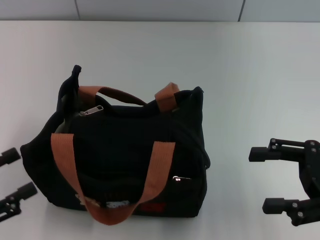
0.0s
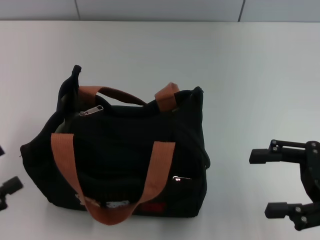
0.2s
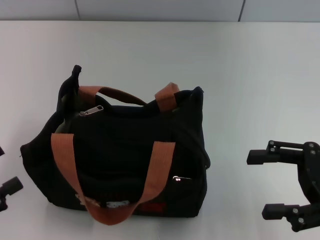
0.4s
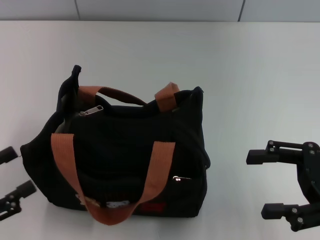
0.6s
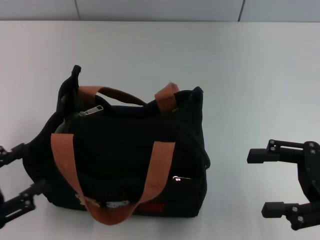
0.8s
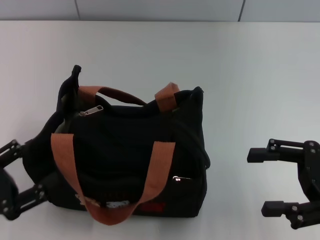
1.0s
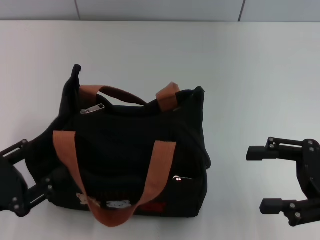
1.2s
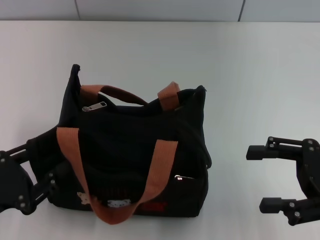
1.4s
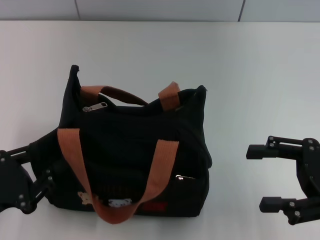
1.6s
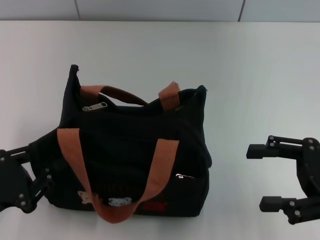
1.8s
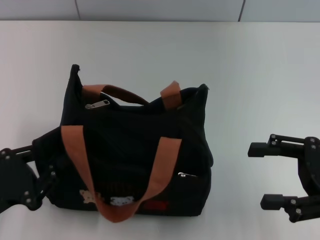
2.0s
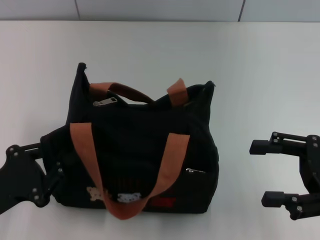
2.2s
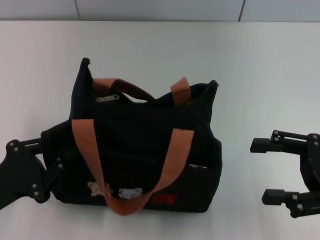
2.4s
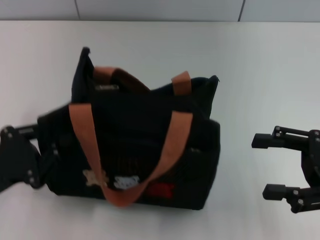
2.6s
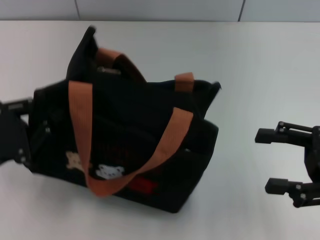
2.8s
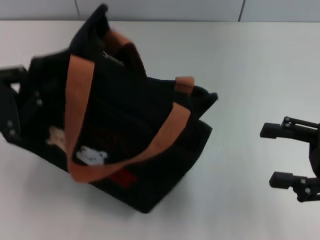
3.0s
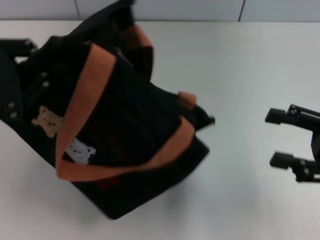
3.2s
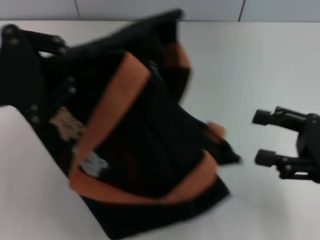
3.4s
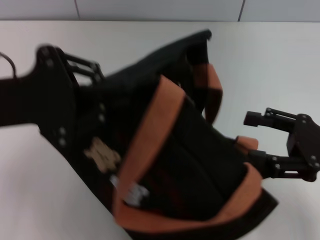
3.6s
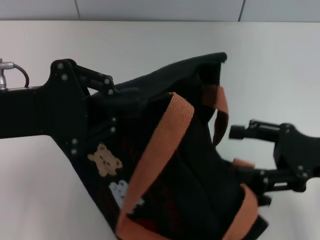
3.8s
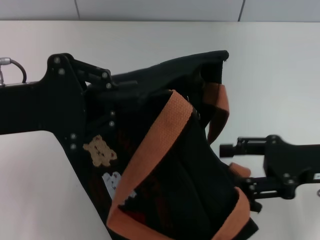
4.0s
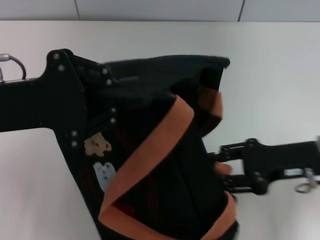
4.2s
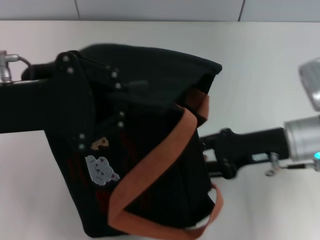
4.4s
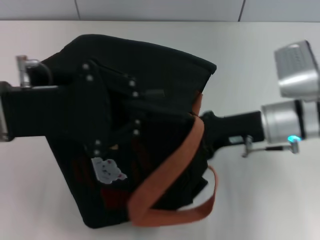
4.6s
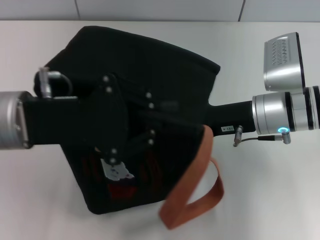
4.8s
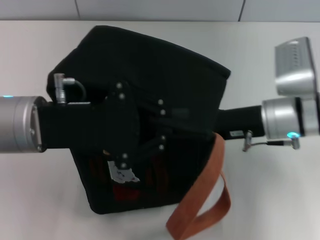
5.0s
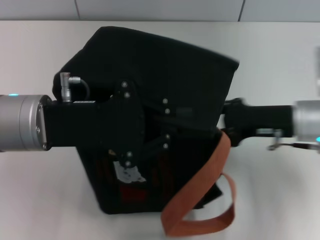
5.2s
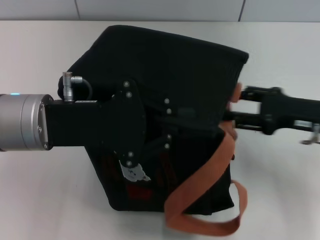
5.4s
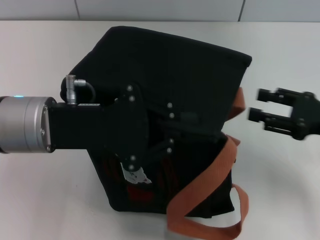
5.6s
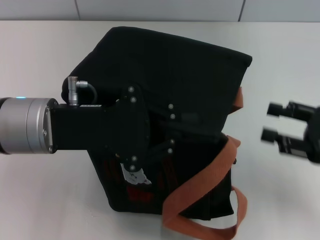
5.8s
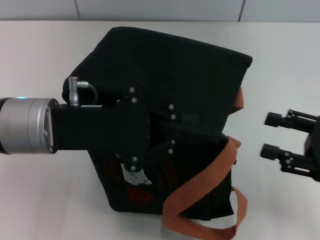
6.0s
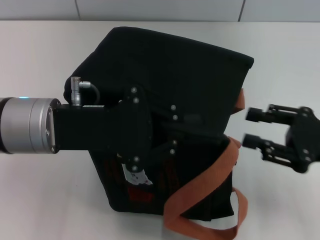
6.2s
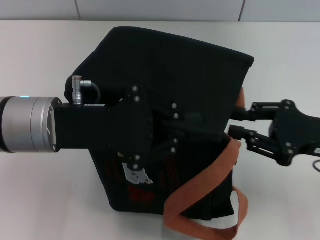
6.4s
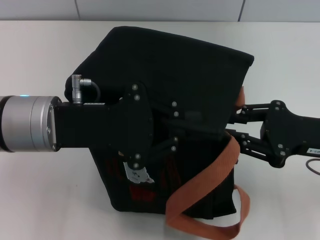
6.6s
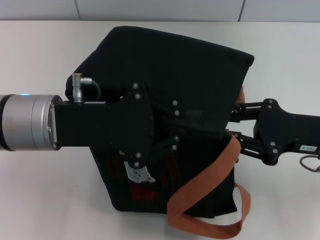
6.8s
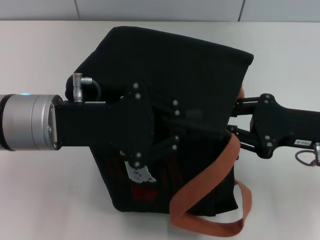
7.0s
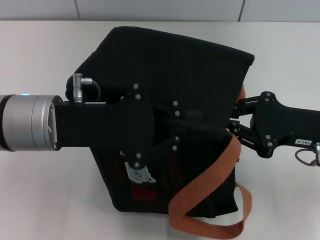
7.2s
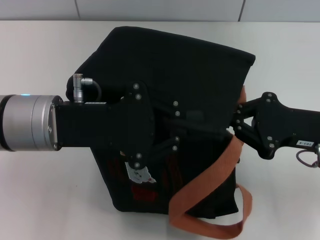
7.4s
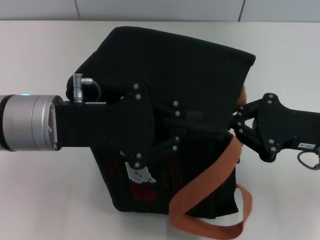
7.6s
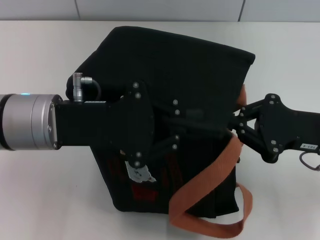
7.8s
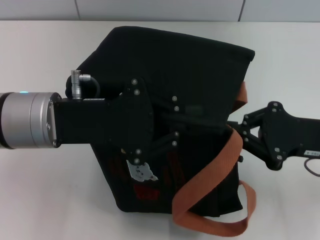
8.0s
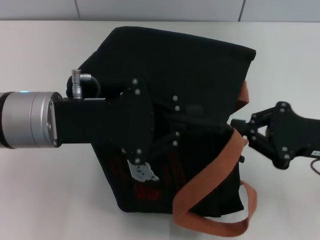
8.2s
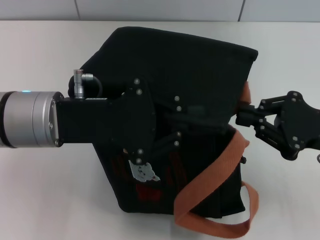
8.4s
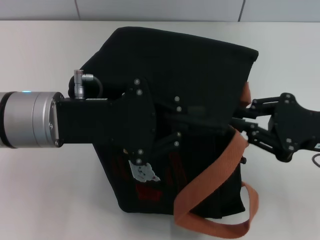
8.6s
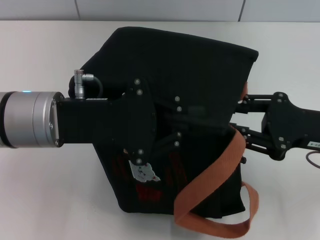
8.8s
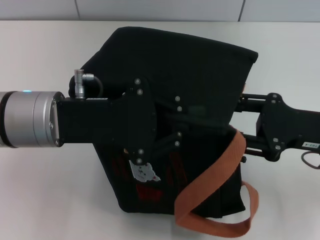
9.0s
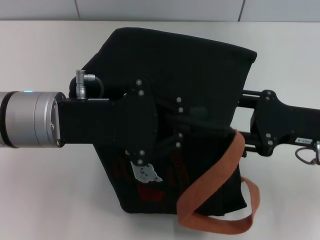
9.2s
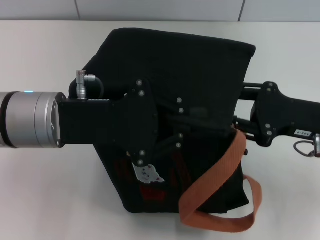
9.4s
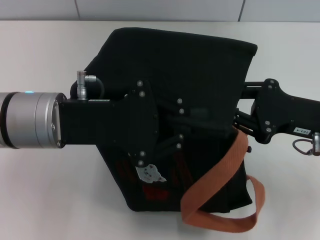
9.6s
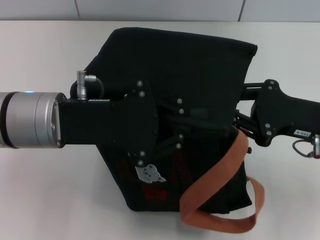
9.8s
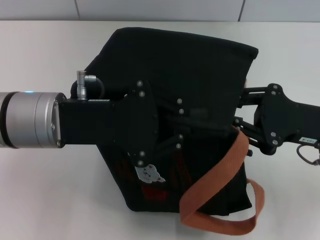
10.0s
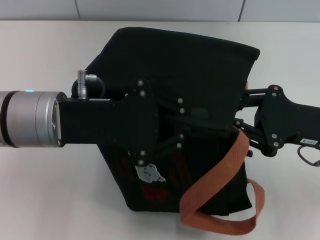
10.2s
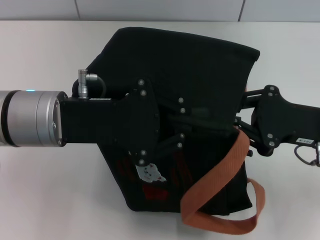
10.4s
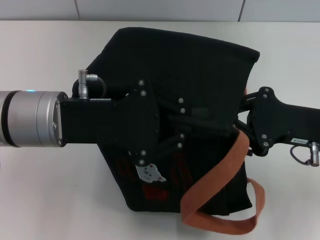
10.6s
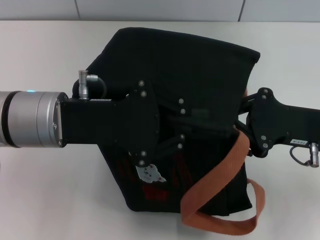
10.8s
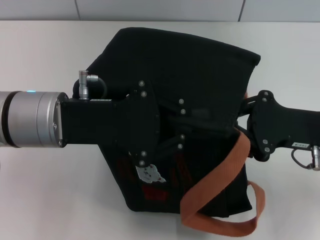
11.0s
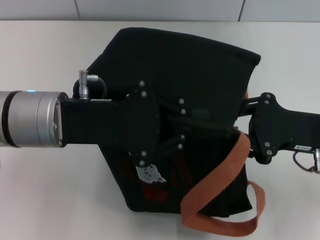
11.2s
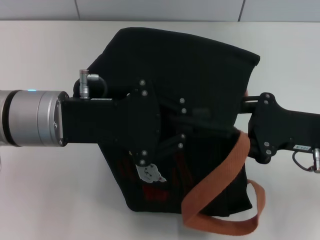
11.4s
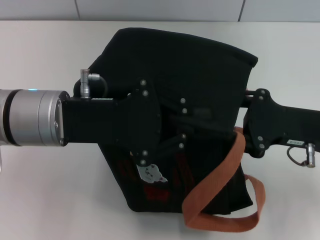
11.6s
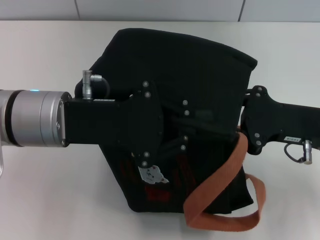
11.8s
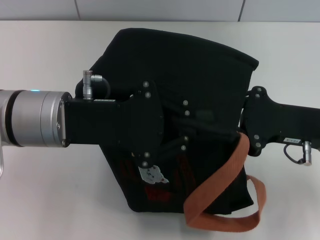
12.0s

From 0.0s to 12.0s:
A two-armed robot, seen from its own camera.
From 0.0s to 1.6s: The left gripper ends up roughly 5 cm from where it was, and closes up.
From 1.6s to 3.0s: The left gripper moves forward and upward, about 10 cm, and closes up.
From 3.0s to 4.4s: The right gripper goes roughly 10 cm to the left and forward. The left gripper is displaced to the right and upward by roughly 10 cm.
From 4.4s to 6.0s: The left gripper changes place by about 5 cm, while the right gripper is displaced to the right and backward by approximately 15 cm.
From 6.0s to 7.6s: The right gripper shifts about 5 cm to the left, and closes up.
From 7.6s to 9.0s: The right gripper opens up.
From 9.0s to 10.4s: The grippers stay close to where they were, moving slightly.
From 10.4s to 12.0s: Neither gripper changes place.

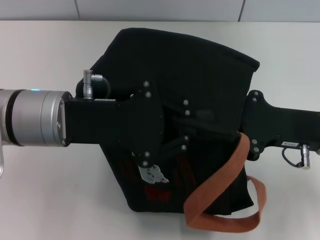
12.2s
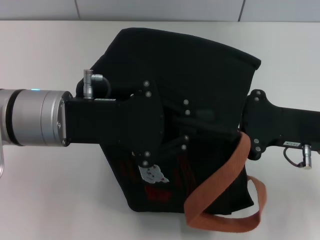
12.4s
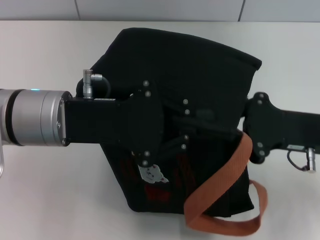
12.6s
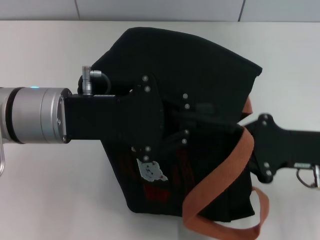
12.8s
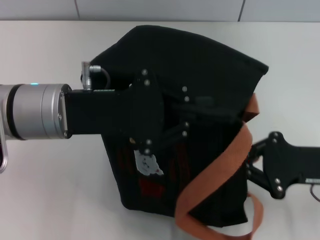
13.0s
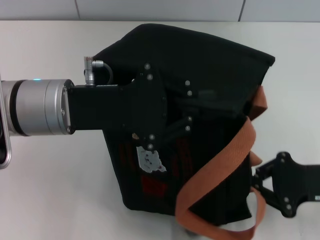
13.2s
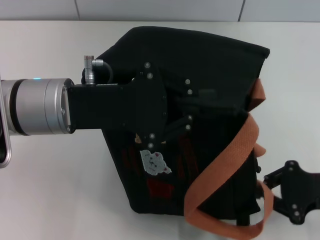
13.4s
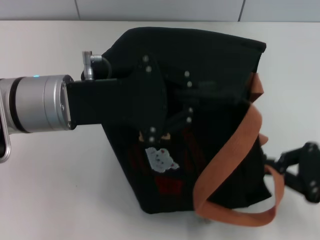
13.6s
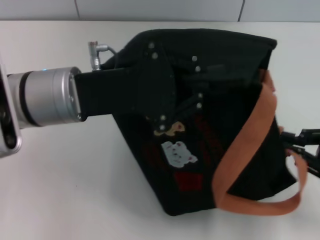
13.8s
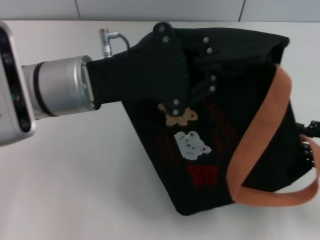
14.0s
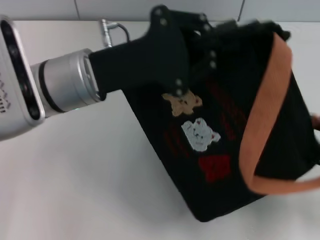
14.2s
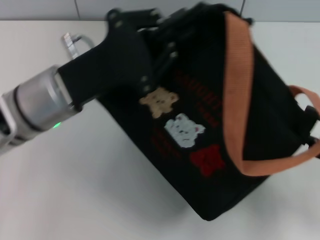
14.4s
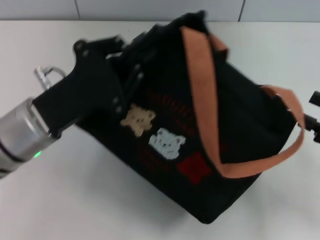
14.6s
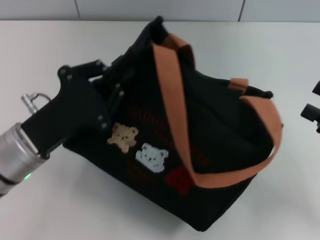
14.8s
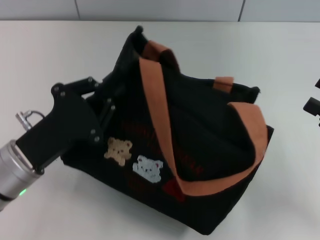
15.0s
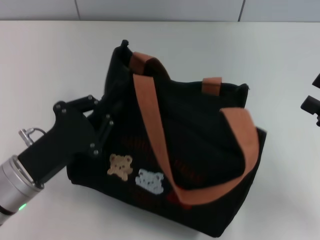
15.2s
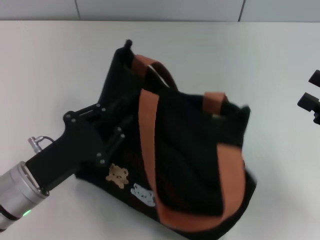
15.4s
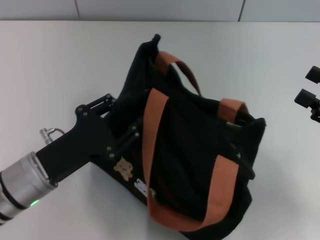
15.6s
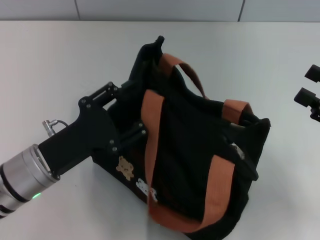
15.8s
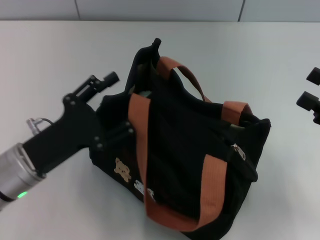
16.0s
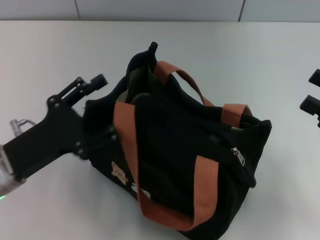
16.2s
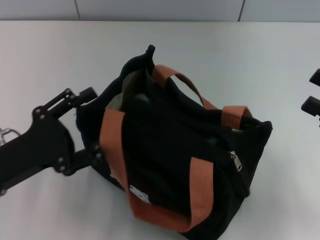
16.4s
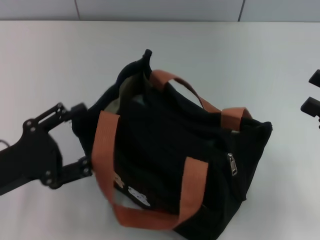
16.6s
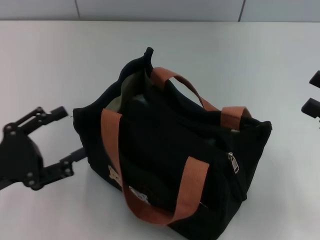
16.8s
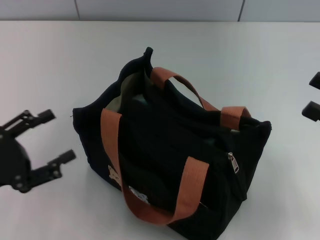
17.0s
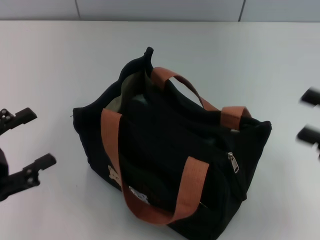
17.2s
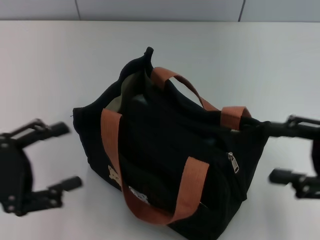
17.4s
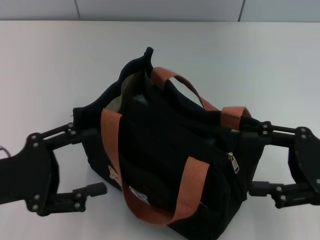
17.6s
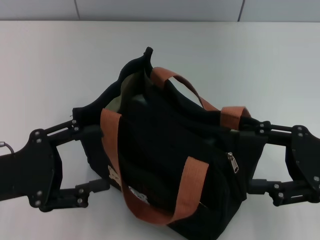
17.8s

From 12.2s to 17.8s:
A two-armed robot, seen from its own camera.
Step, from 12.2s to 14.4s: Pull open the zipper with your right hand.
Step, from 14.6s to 16.8s: Grab the bag with your left hand.
From 12.2s to 13.6s: The right gripper travels to the right and backward by some 10 cm.
From 13.6s to 15.0s: The right gripper opens up. Meanwhile the left gripper goes approximately 15 cm downward, backward and to the left.
From 15.0s to 16.4s: The left gripper opens.
From 16.4s to 17.8s: The right gripper moves to the left, roughly 5 cm.

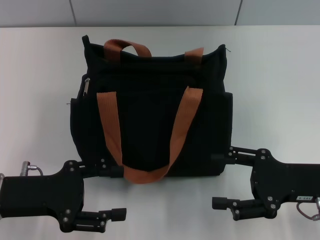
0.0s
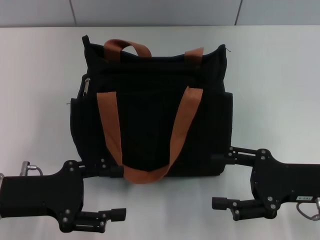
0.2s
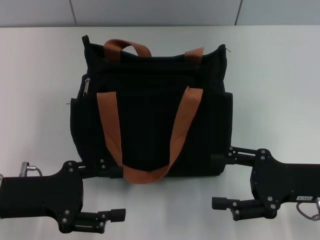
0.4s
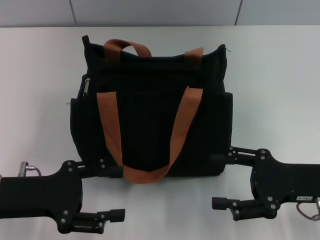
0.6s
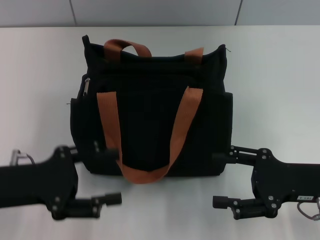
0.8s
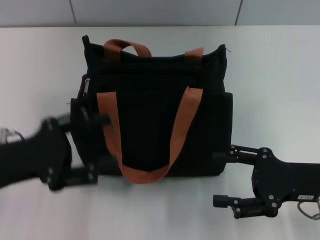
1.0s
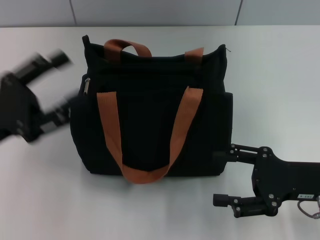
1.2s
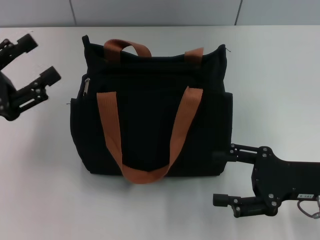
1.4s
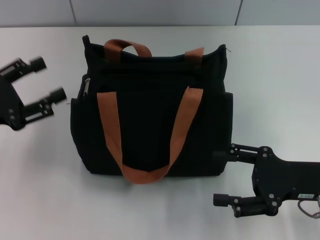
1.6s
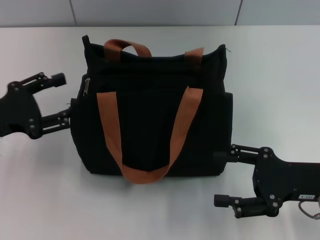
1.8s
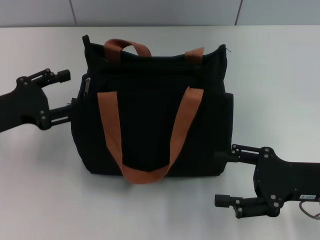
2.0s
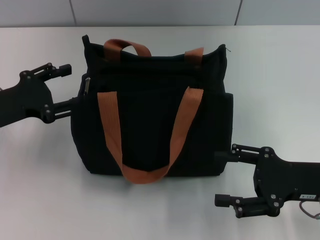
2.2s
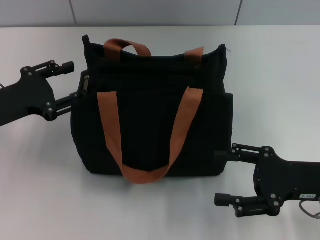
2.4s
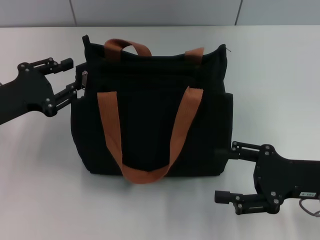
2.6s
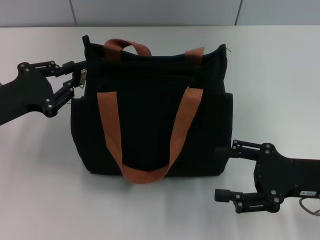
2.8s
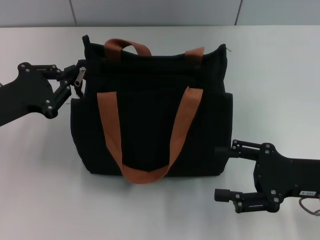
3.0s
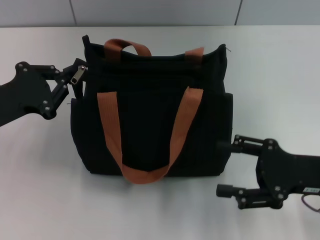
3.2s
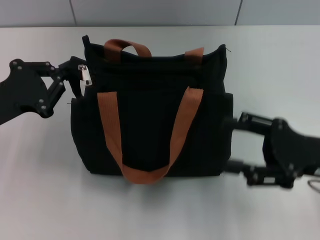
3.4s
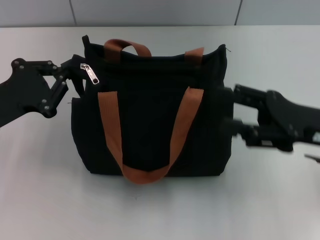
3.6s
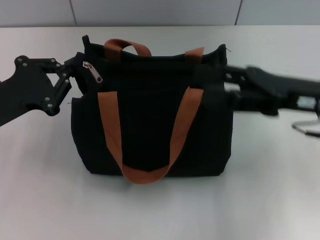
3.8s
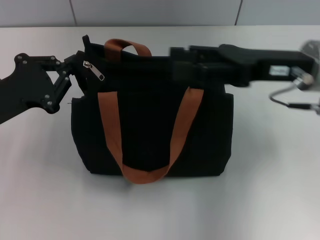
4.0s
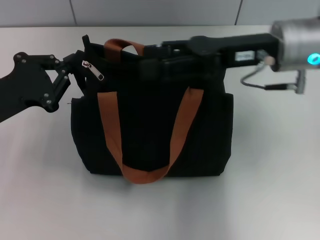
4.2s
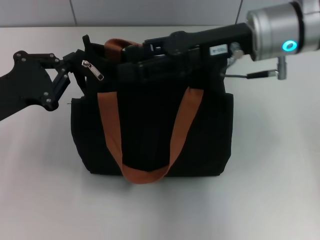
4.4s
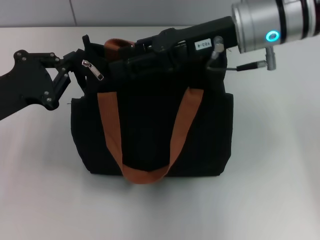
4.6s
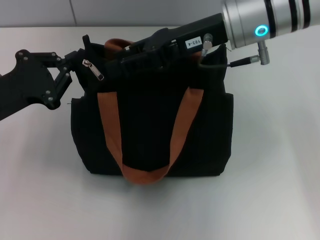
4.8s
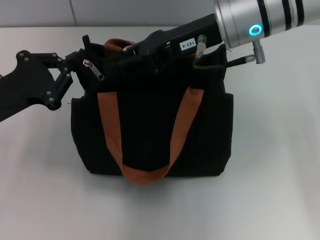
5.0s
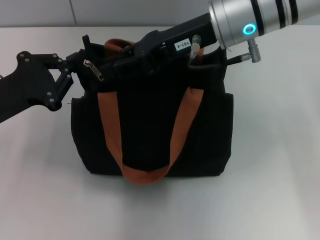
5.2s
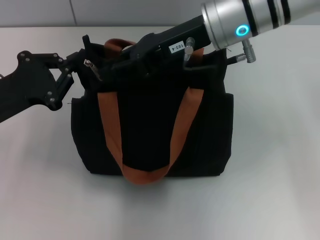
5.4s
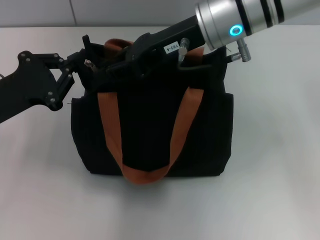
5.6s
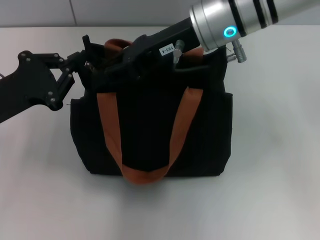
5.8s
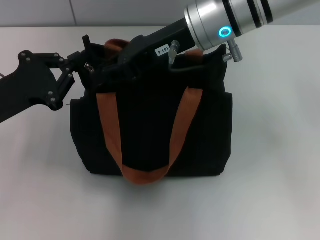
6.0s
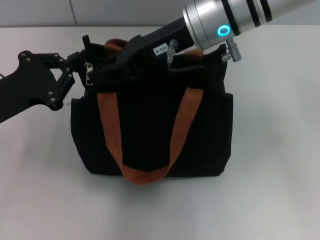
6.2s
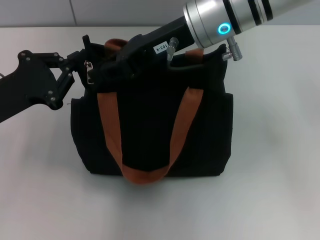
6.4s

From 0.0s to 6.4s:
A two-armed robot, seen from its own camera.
From 0.0s to 1.6s: The left gripper travels to the left by roughly 5 cm.
From 1.6s to 3.2s: The left gripper closes.
From 3.2s to 4.8s: The right gripper shifts about 25 cm forward, to the left and upward.
From 4.8s to 6.4s: The right gripper closes up.
